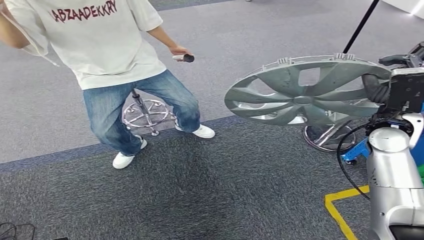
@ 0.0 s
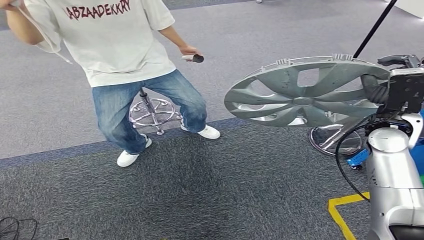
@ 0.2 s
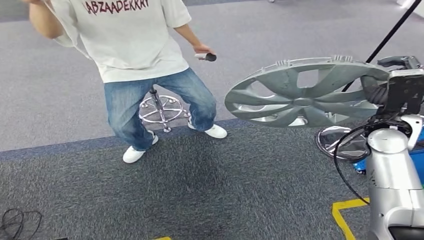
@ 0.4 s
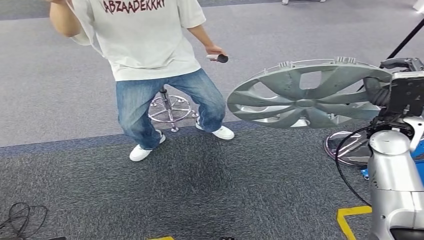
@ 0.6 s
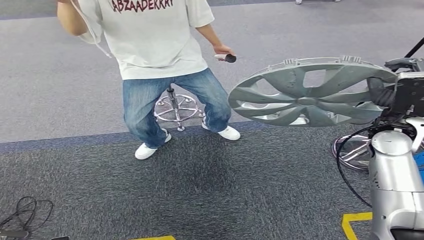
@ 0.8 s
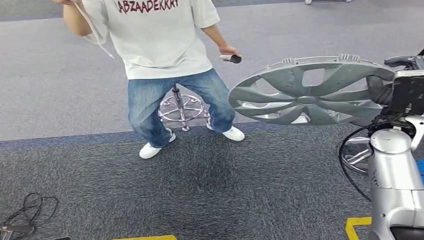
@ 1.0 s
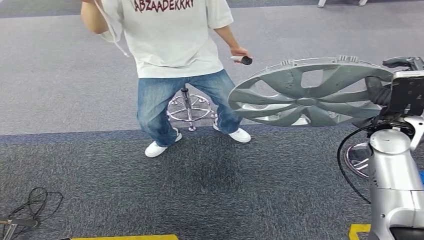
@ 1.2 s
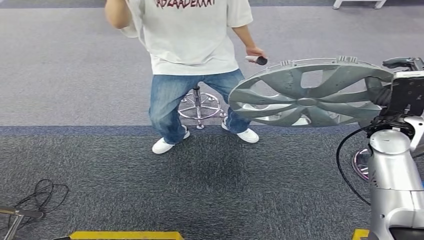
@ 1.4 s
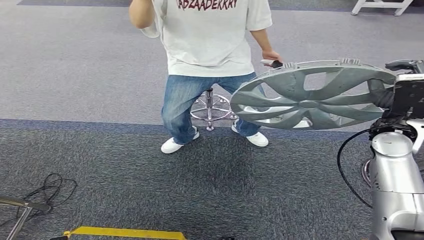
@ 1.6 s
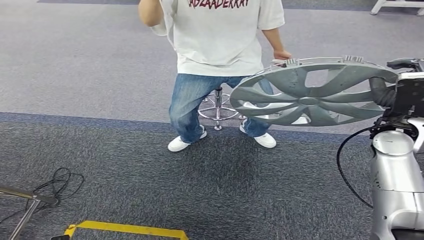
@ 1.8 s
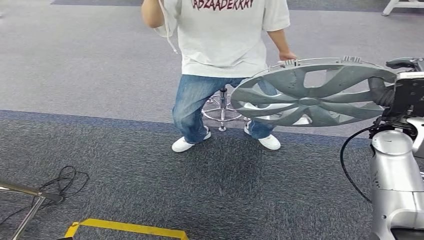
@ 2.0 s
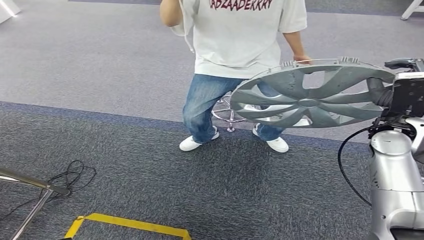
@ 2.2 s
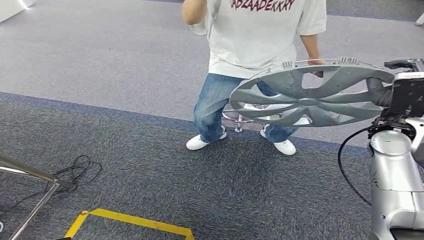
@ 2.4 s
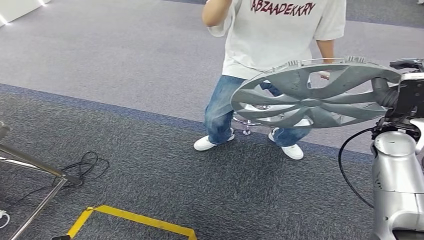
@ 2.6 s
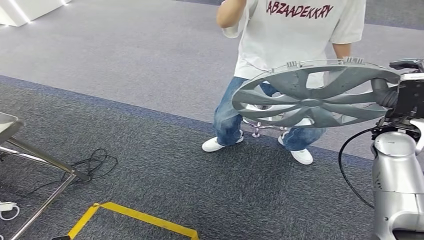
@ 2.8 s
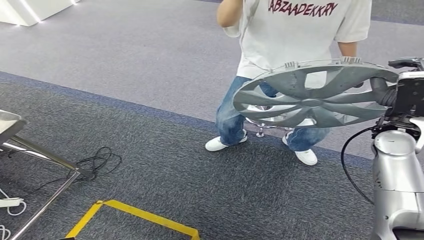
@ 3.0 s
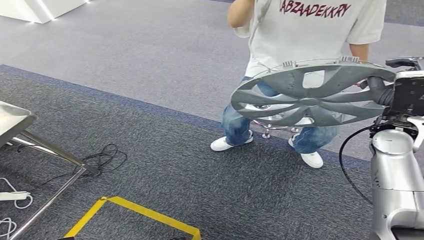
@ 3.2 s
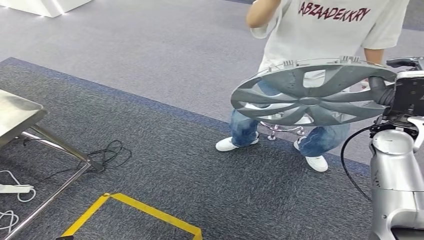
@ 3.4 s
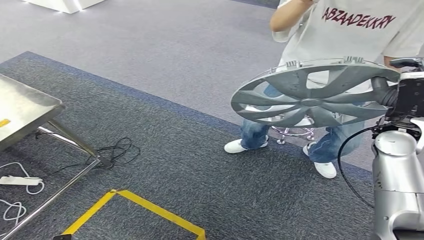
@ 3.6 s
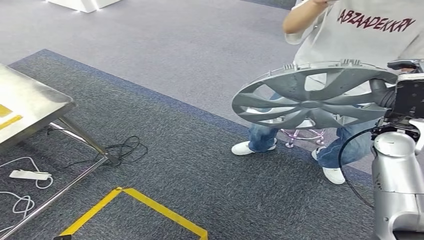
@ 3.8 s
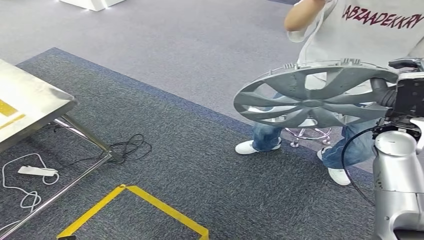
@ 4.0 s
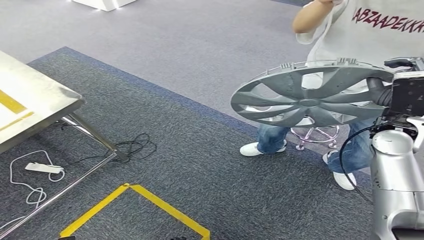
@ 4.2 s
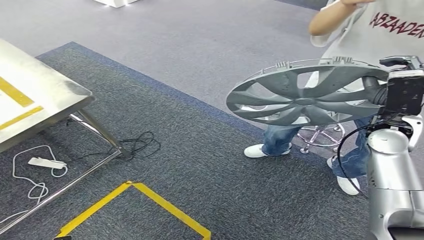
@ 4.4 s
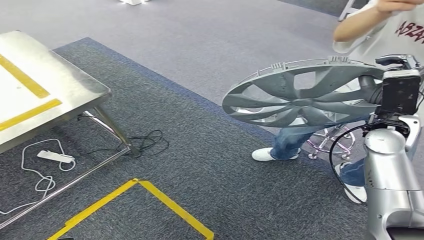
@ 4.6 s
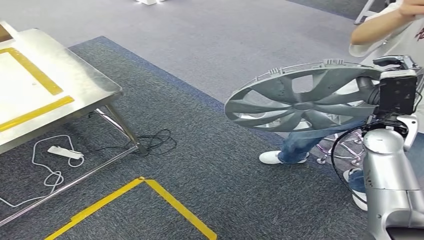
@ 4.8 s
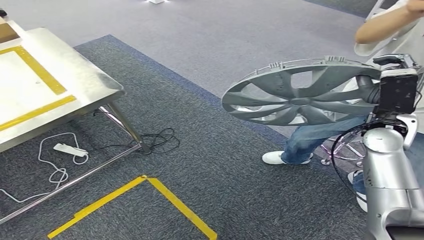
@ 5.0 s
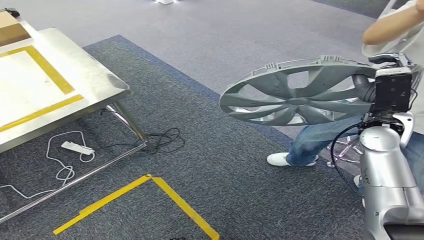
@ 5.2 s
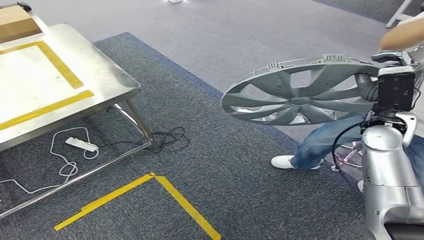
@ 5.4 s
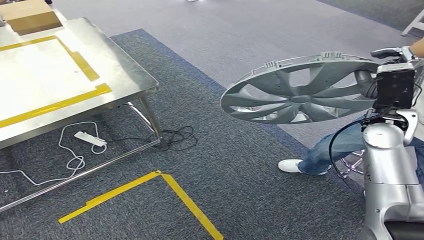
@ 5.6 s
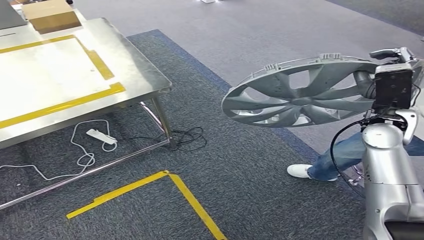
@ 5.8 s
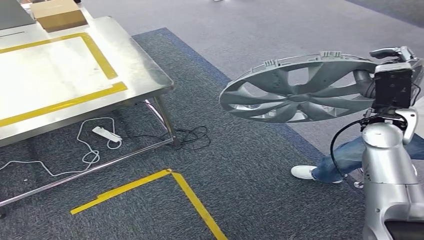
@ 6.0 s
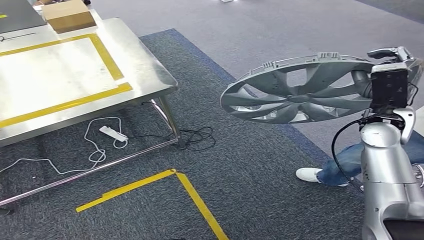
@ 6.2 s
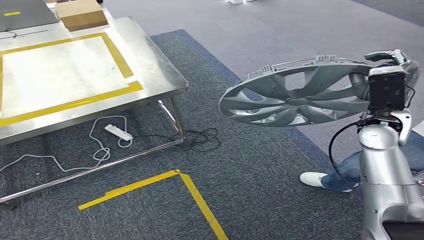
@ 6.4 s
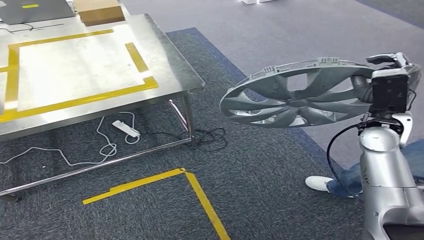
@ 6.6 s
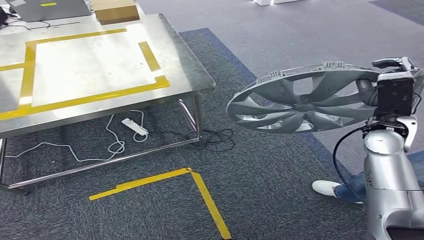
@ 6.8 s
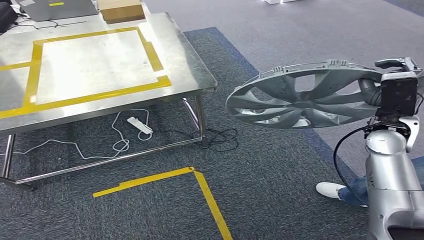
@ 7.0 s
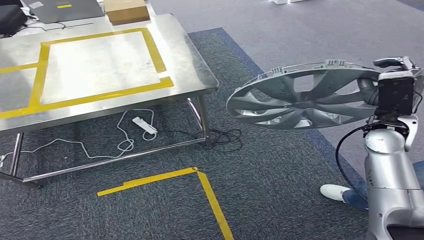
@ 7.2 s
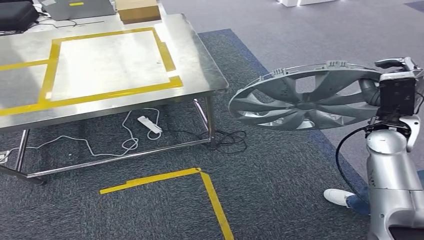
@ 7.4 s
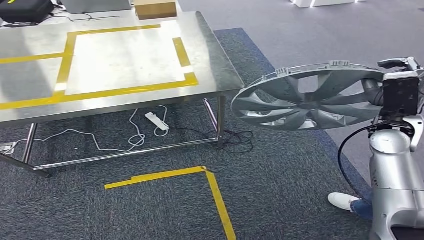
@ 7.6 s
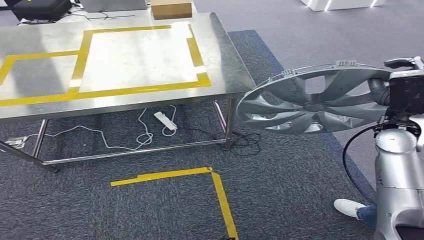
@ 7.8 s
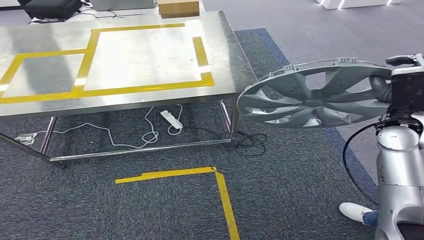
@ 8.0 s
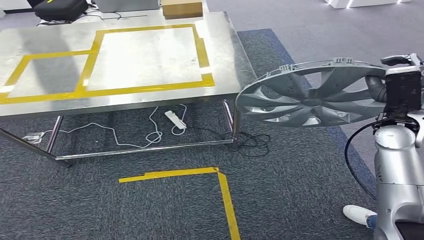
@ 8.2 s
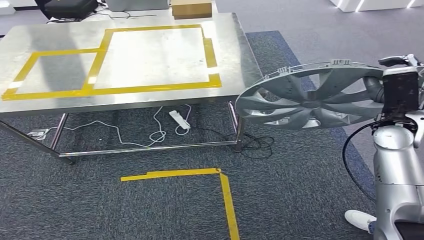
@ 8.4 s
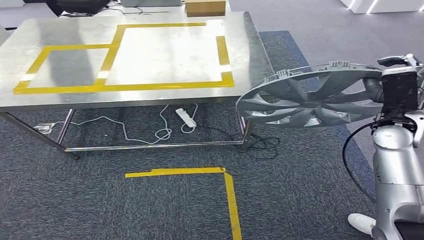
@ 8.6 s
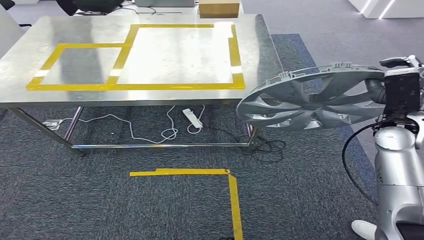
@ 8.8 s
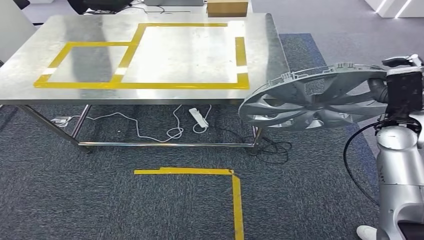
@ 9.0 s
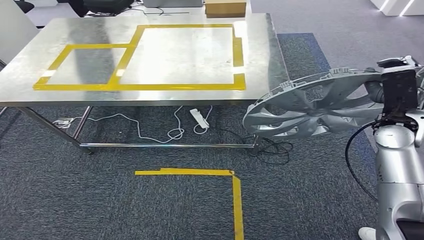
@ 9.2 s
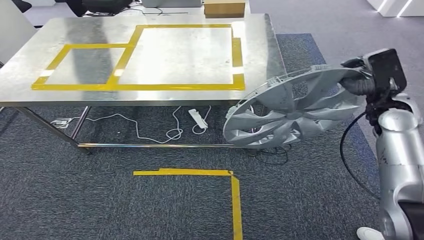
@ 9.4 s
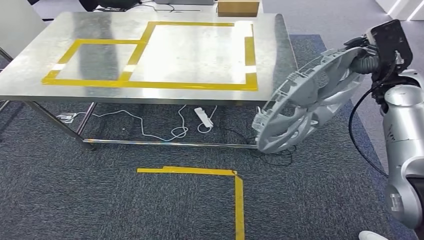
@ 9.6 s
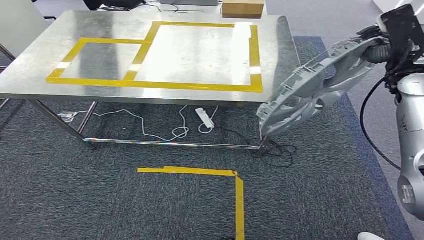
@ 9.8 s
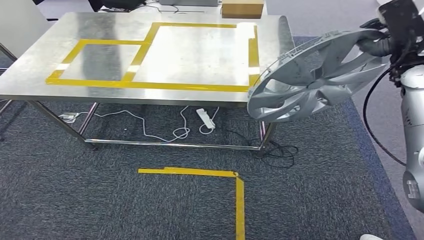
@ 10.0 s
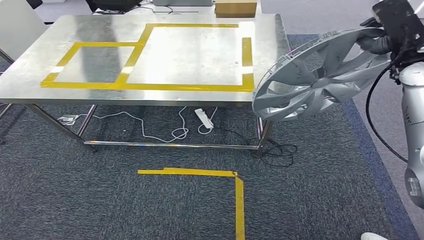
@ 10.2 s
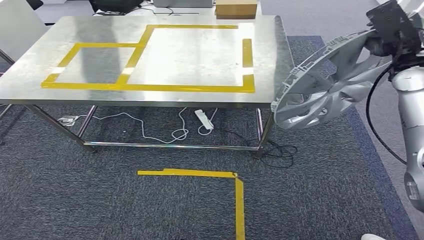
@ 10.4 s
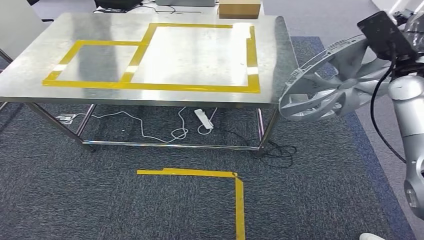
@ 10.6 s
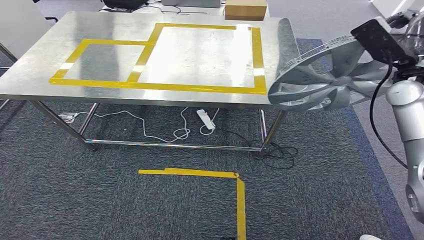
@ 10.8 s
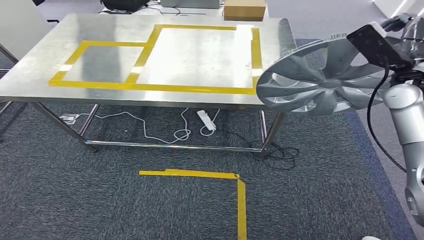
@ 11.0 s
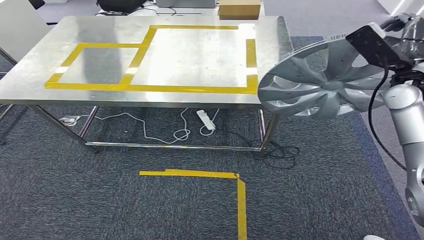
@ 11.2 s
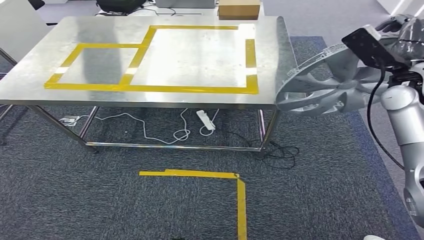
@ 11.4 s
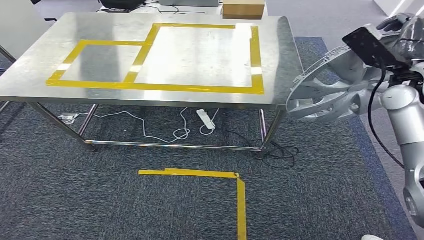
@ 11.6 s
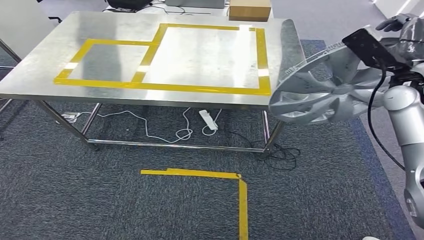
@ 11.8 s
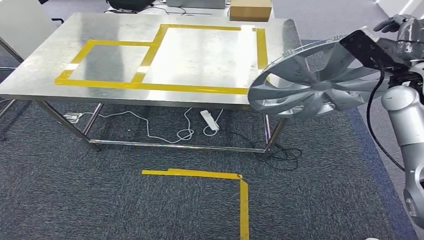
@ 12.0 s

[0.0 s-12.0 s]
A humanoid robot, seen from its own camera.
Step, 0.0 to 8.4 s: Move the small component to the workbench.

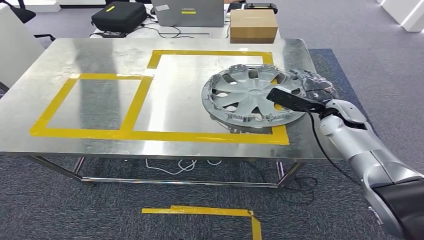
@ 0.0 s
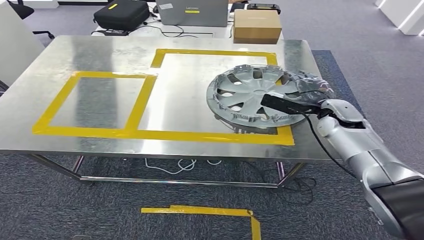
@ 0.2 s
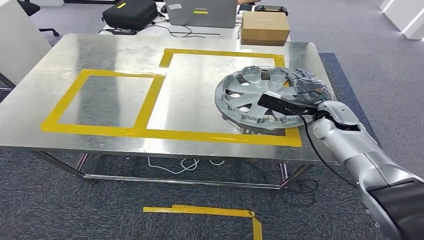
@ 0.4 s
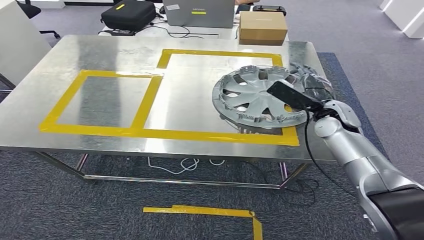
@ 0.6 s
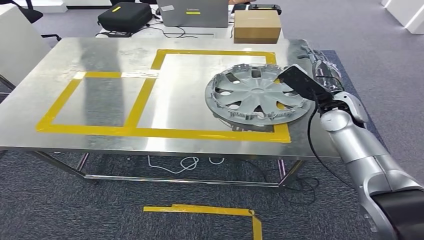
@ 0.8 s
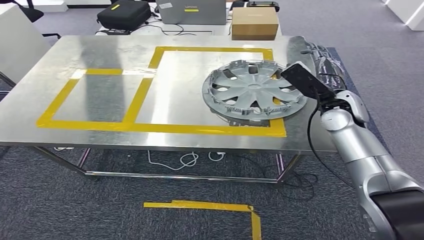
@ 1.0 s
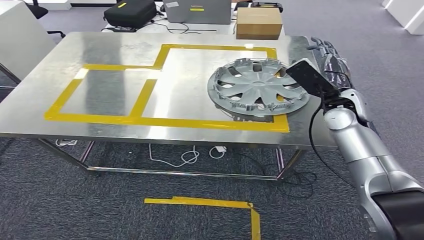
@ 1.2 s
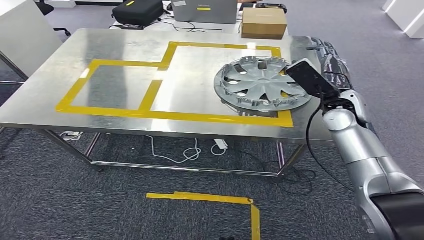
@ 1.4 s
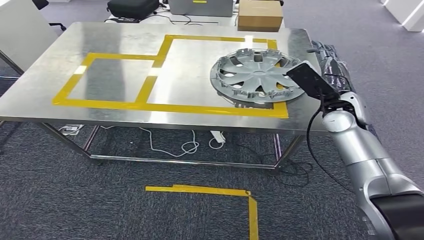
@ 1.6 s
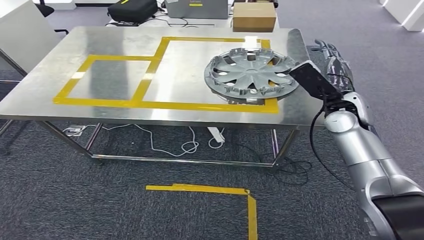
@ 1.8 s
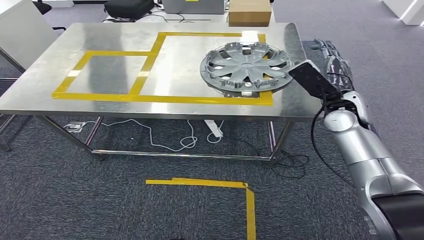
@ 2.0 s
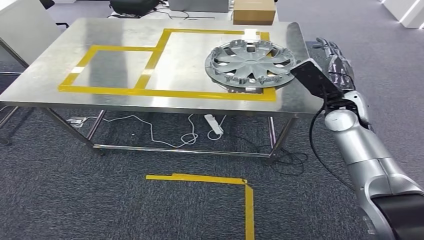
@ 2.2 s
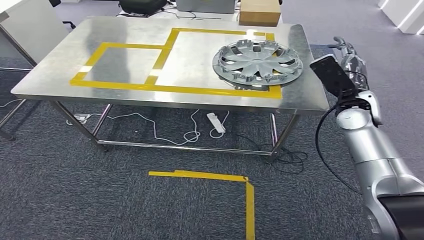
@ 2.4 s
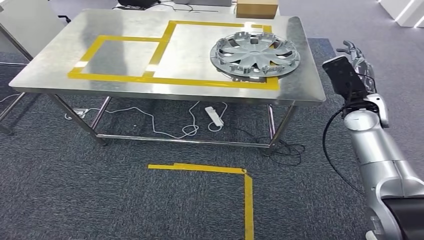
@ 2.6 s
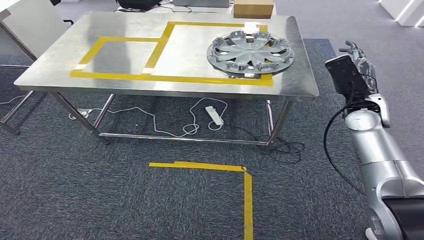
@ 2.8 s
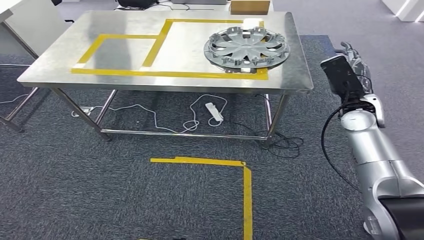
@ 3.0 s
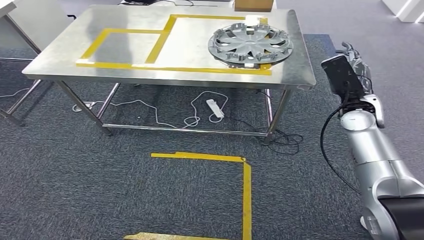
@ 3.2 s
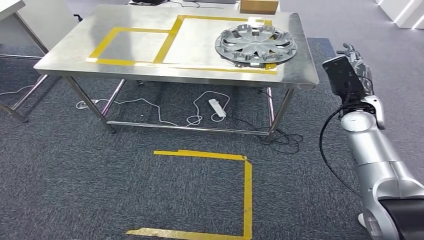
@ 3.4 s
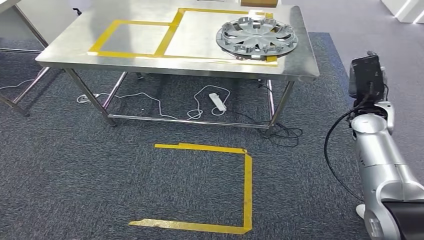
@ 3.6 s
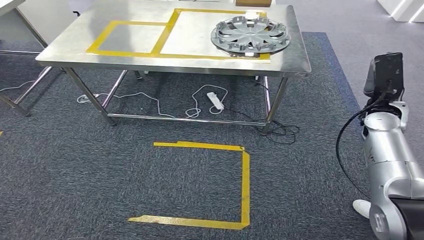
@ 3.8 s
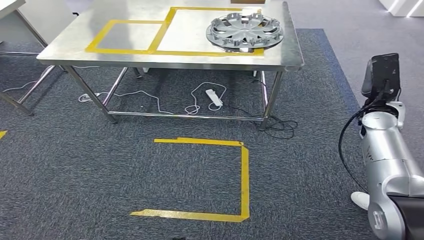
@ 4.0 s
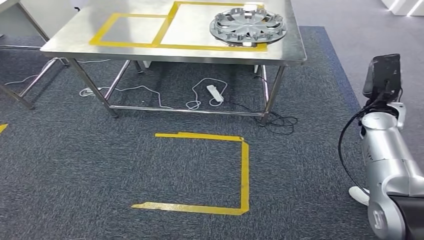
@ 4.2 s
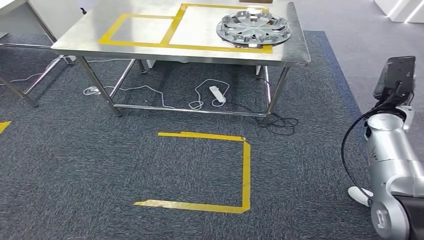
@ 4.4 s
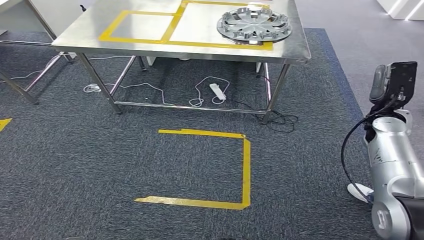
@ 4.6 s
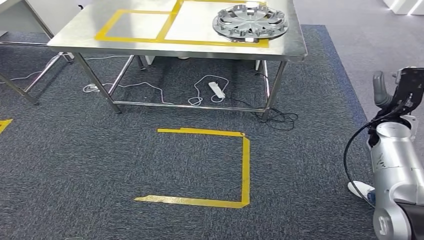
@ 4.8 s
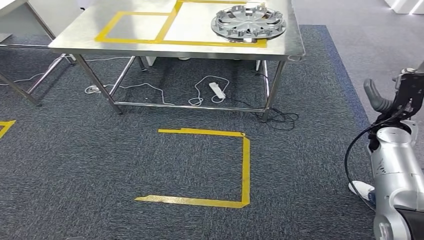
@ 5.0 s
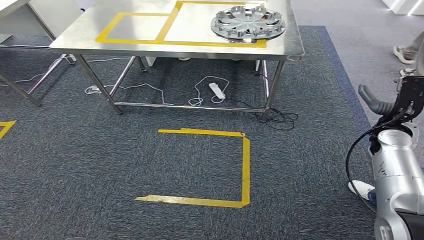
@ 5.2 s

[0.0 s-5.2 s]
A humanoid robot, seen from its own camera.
Step, 0.0 to 2.2 s: Insert the small component into the corresponding slot on the workbench.
